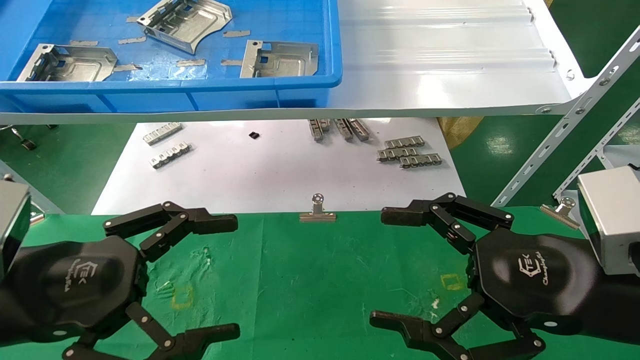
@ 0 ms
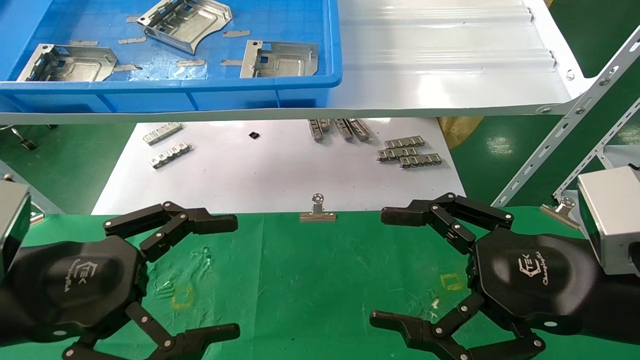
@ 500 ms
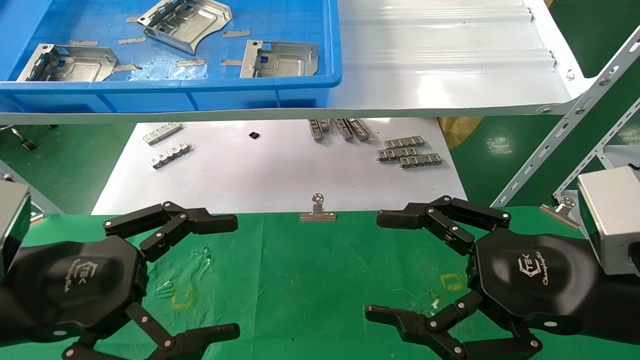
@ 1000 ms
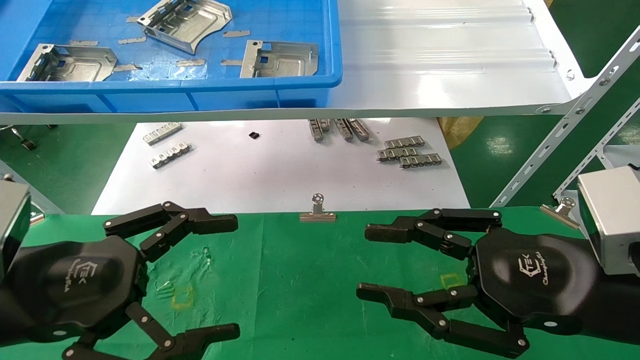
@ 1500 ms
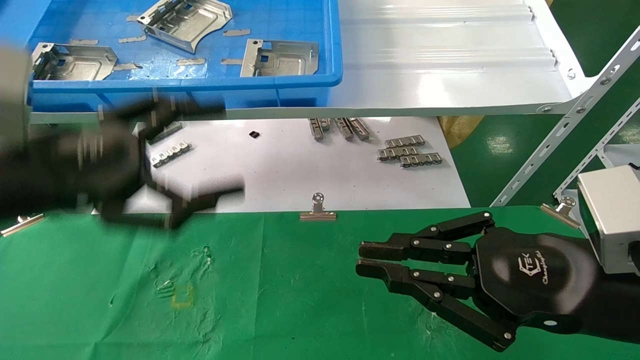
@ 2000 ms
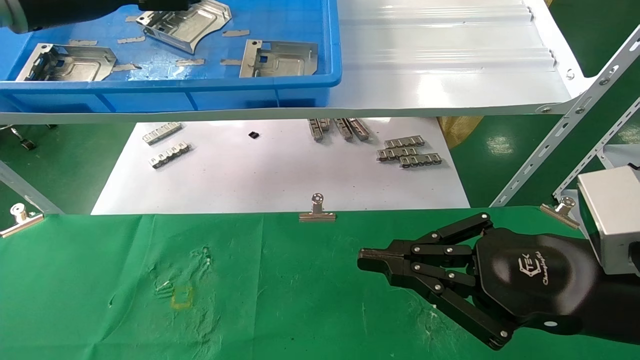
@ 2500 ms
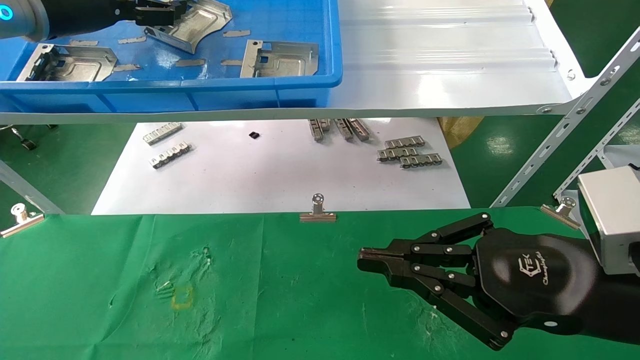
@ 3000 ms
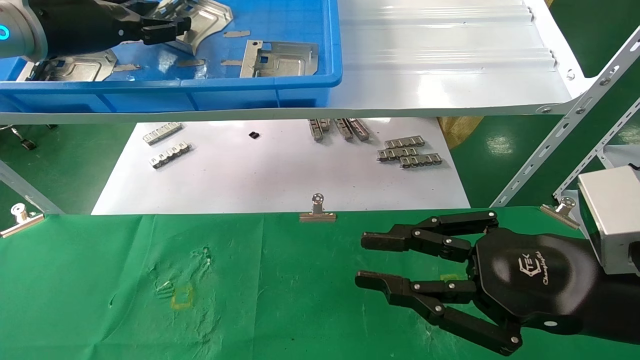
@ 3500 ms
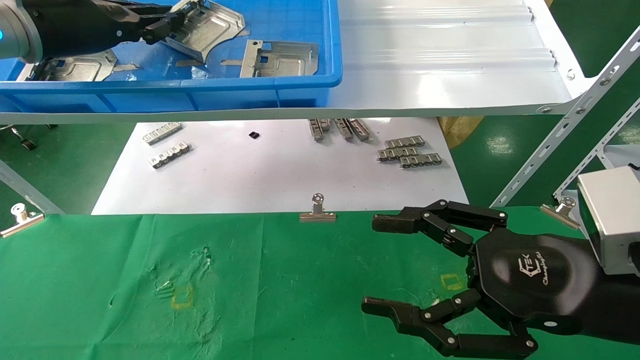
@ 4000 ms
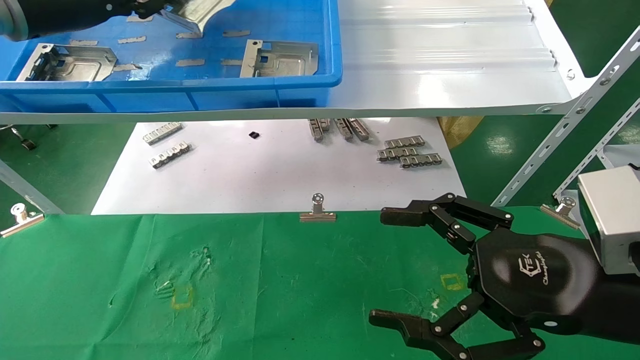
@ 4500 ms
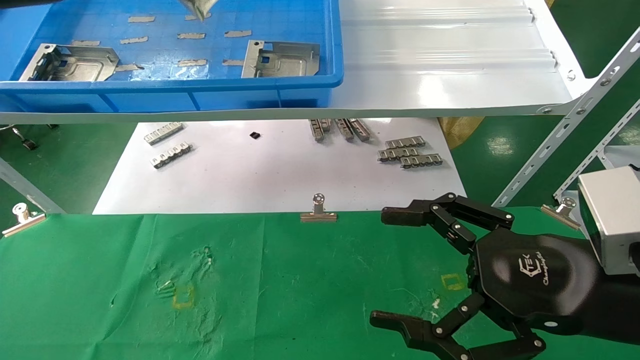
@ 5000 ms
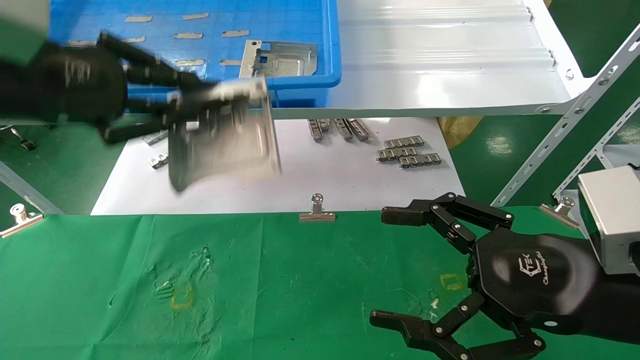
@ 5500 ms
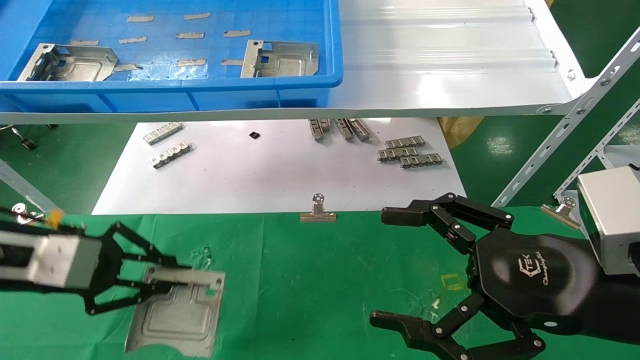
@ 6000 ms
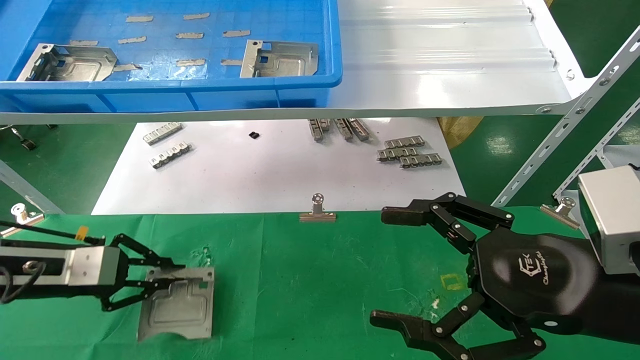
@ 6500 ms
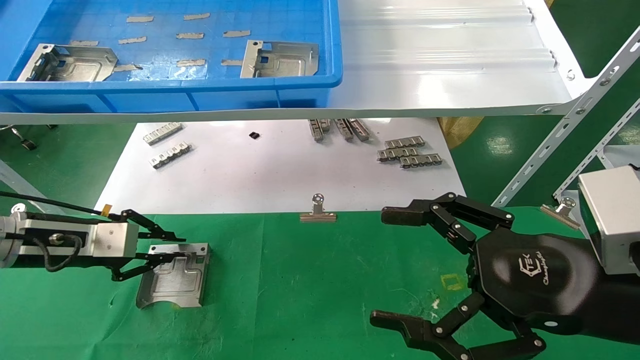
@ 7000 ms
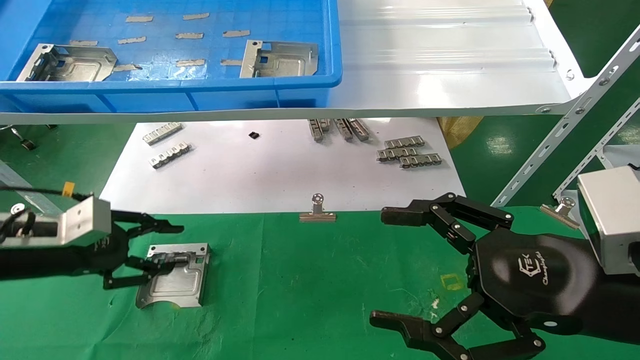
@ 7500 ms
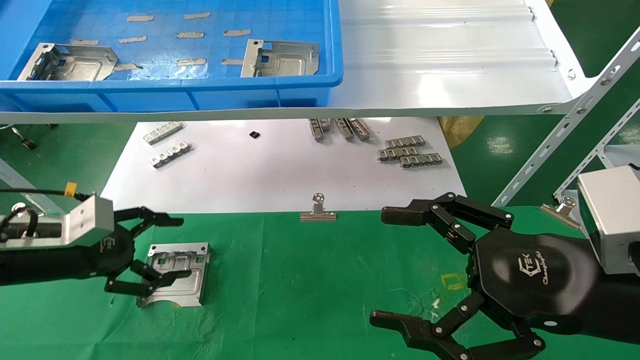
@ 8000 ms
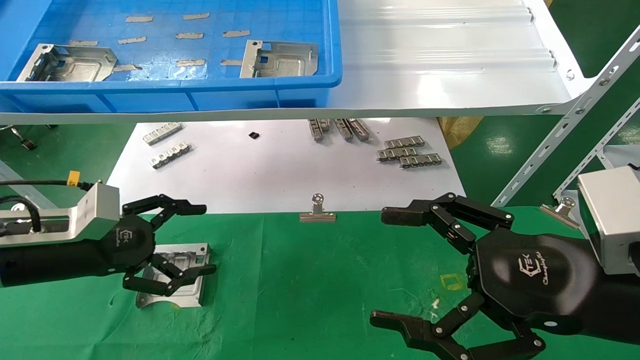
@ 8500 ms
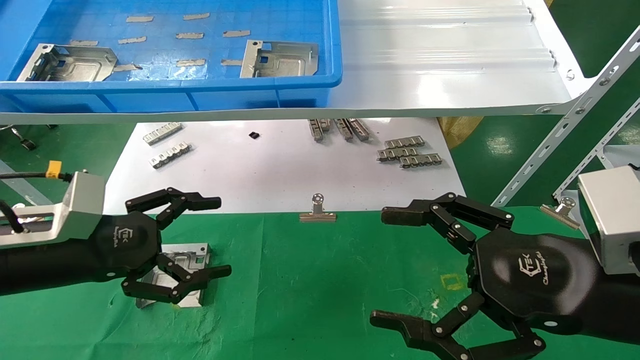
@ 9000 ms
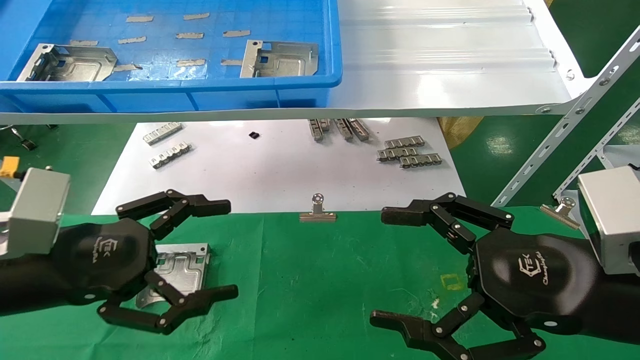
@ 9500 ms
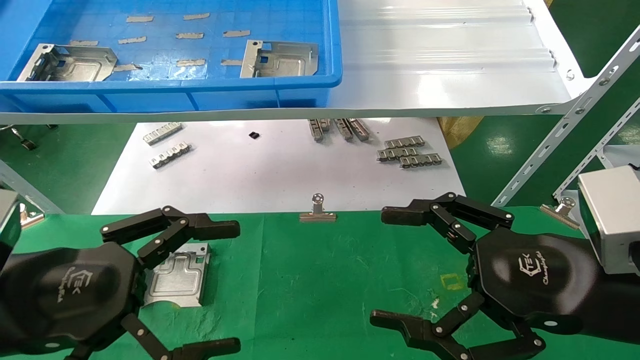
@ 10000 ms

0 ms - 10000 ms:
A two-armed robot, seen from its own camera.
Task of the whole recording: use the mechanical arm to pick up the parts and place them on the table.
Step, 2000 ms - 4000 ms: Pick up the hard drive bracket from the feeding area.
Step, 4500 ms - 7000 ms: Place the hard drive bracket into the box.
0 ms - 2000 ms: The left gripper heads upward and forward, covering roughly 10 cm. The right gripper closes.
2000 ms - 4000 ms: The right gripper opens up; the left gripper is displaced forward and upward by about 20 cm, and closes its fingers.
4000 ms - 6000 ms: The right gripper opens its fingers; the left gripper shifts about 25 cm downward and backward.
6000 ms - 8000 ms: The left gripper moves about 5 cm, and opens.
8000 ms - 10000 ms: The left gripper is displaced backward and to the right by approximately 15 cm.

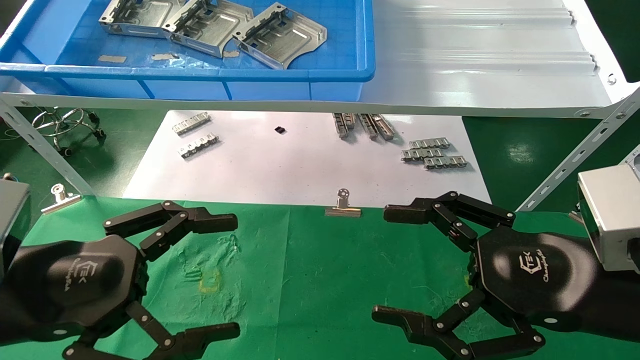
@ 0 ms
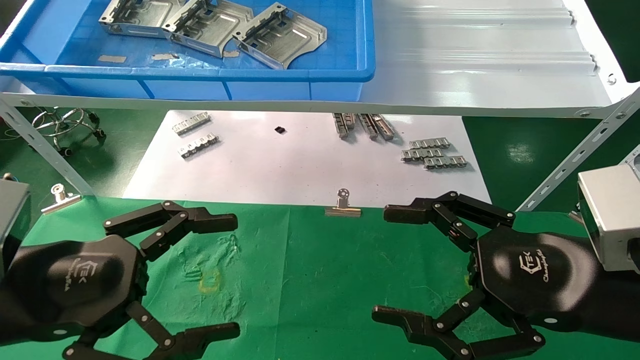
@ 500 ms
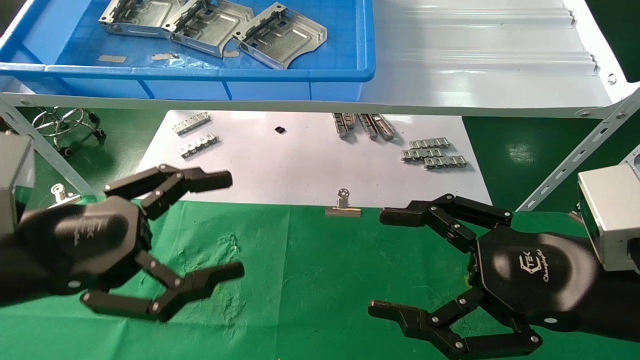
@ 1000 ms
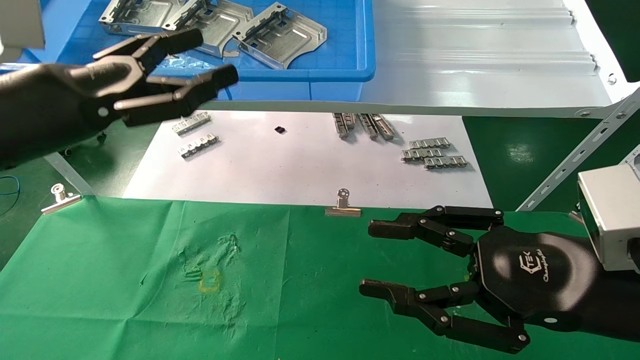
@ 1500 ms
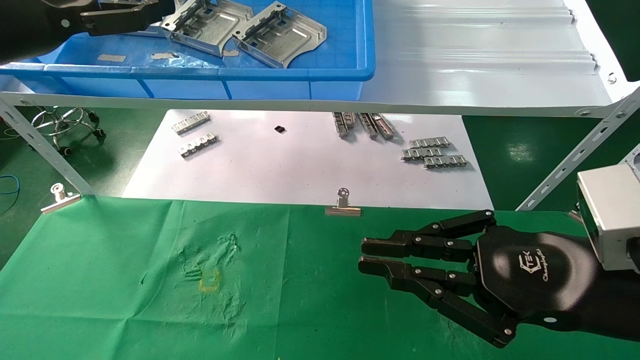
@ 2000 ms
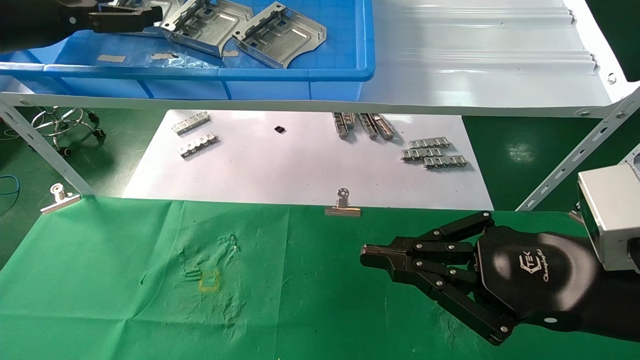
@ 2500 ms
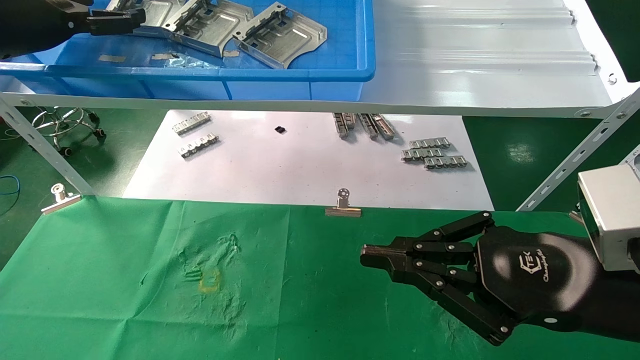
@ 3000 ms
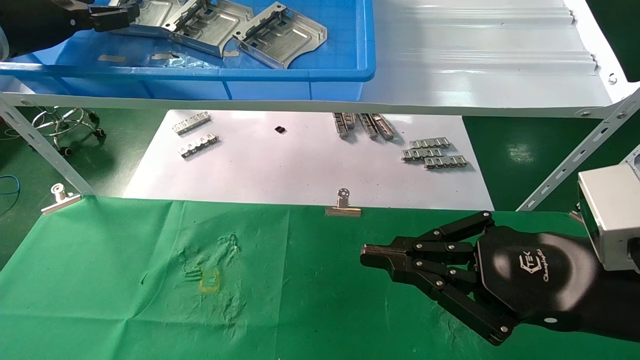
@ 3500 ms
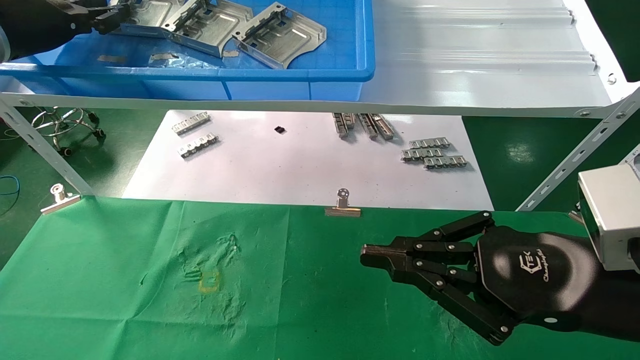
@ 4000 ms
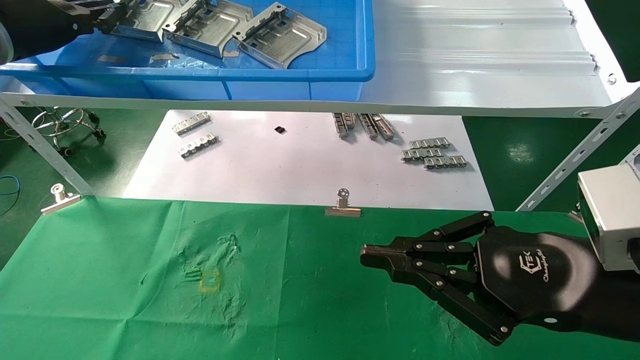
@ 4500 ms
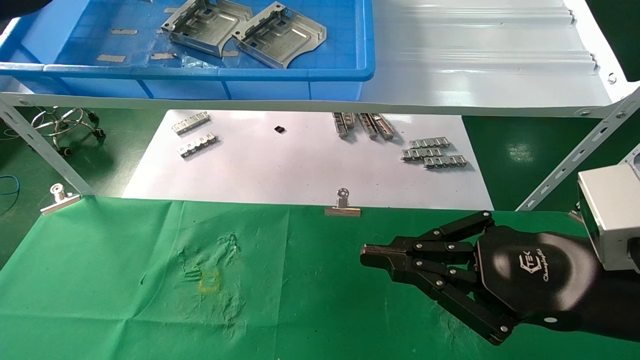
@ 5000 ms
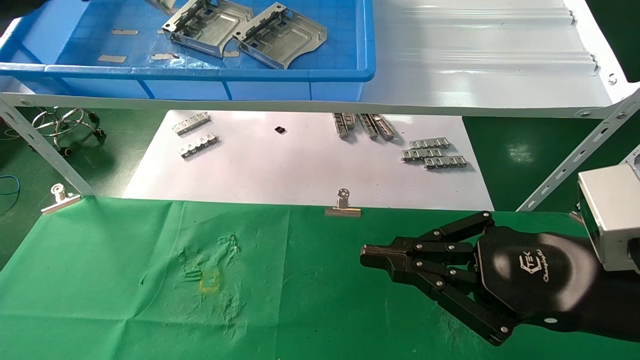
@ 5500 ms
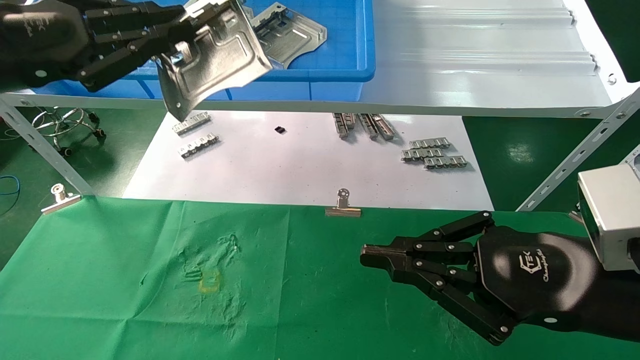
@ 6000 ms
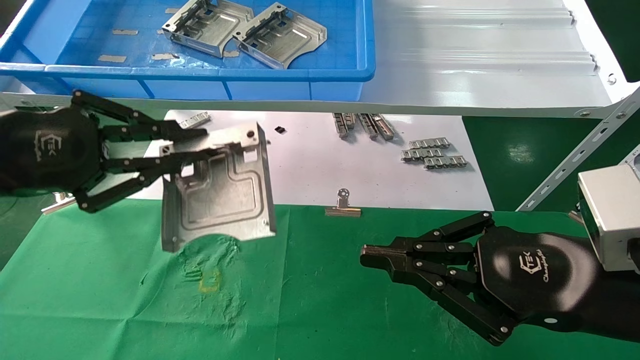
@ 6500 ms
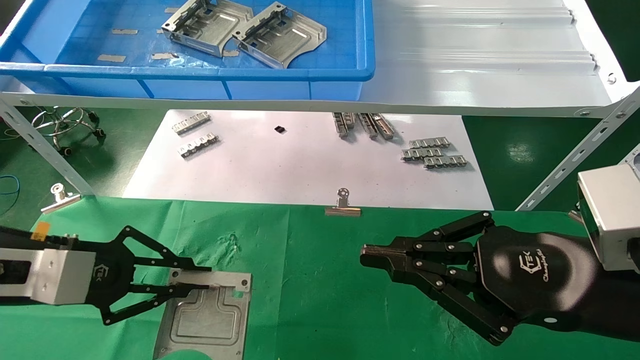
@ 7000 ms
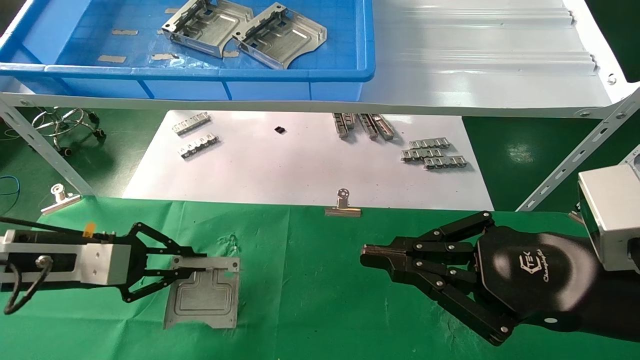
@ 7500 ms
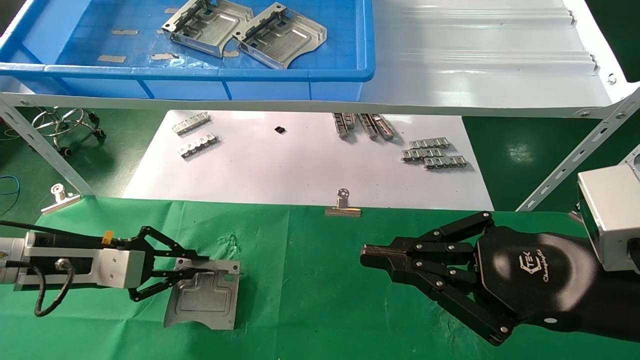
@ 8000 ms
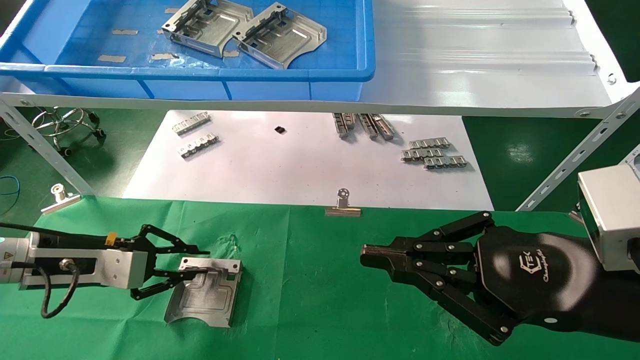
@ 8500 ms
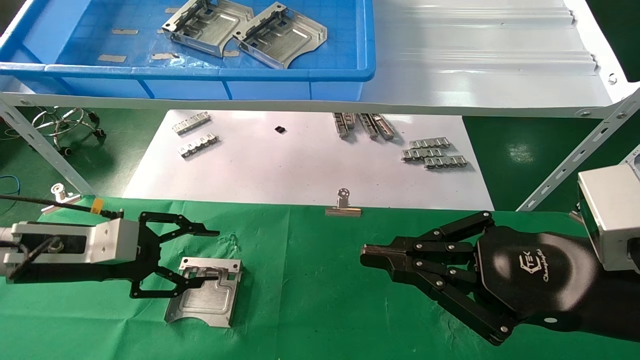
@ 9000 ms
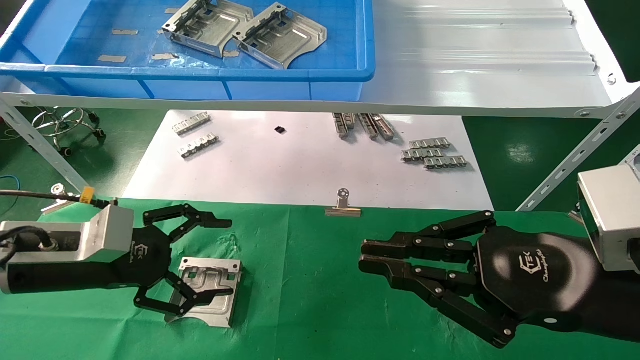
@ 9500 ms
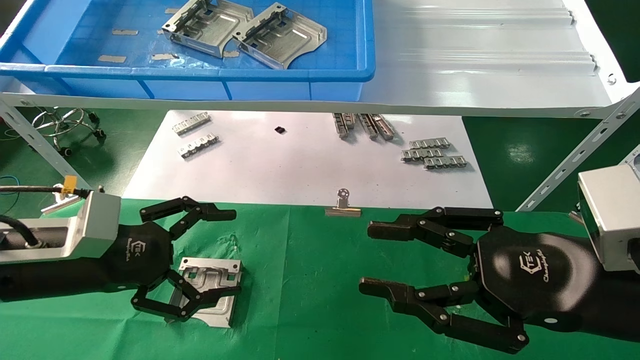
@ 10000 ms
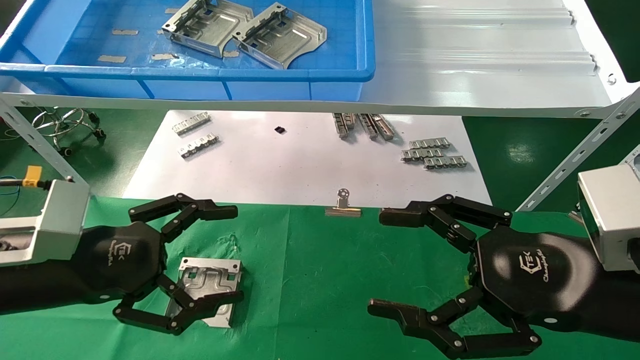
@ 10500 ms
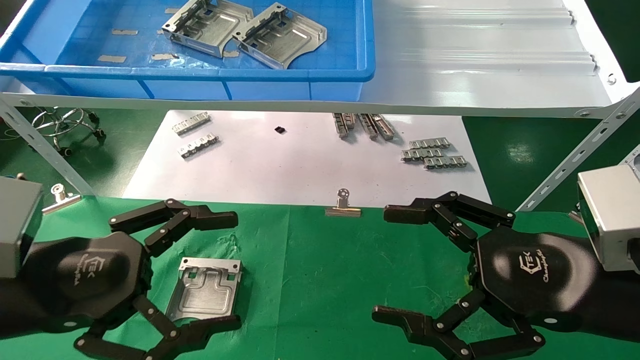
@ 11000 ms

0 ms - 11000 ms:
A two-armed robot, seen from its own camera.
Task of the whole recording: use the mechanical arm to pick up the parts and place them on the table.
Step, 1500 ms - 4000 ms: Pick up the hard drive bracket from the feeding area.
Step, 4500 ms - 8500 ms: Place the hard drive bracket into the box.
0 ms - 2000 ms: The right gripper closes up, while the left gripper travels upward and forward by about 25 cm.
2000 ms - 3500 ms: The left gripper moves forward, approximately 10 cm.
3500 ms - 5500 ms: The left gripper shifts approximately 10 cm backward, and closes.
5500 ms - 7500 ms: The left gripper heads downward, covering some 25 cm.
7500 ms - 9000 ms: The left gripper opens its fingers.
9000 ms - 11000 ms: The right gripper opens up, while the left gripper is displaced backward and to the right by some 15 cm, and opens.
